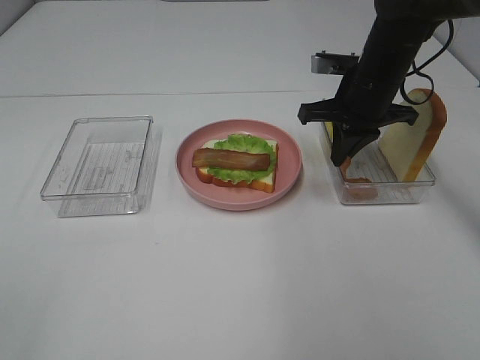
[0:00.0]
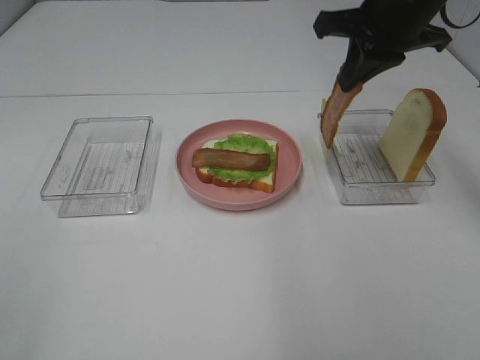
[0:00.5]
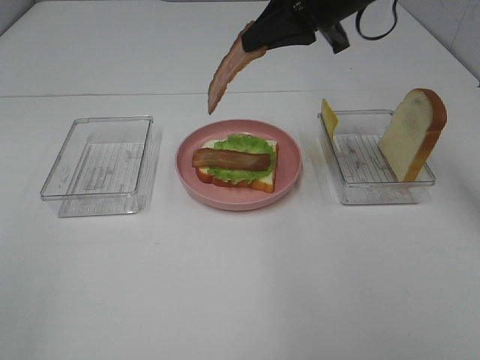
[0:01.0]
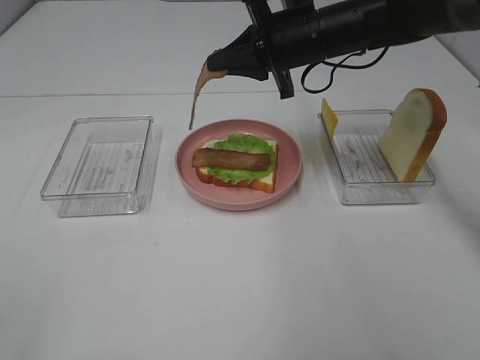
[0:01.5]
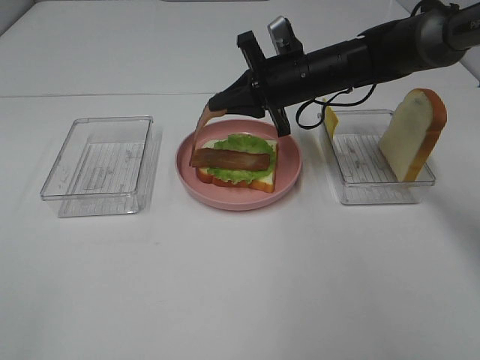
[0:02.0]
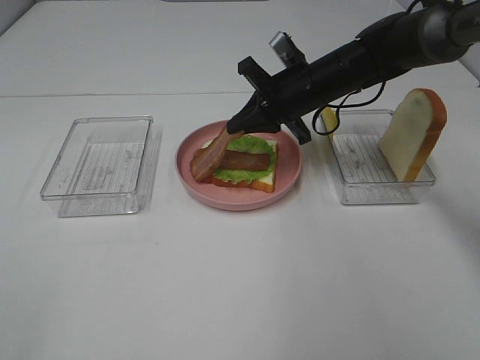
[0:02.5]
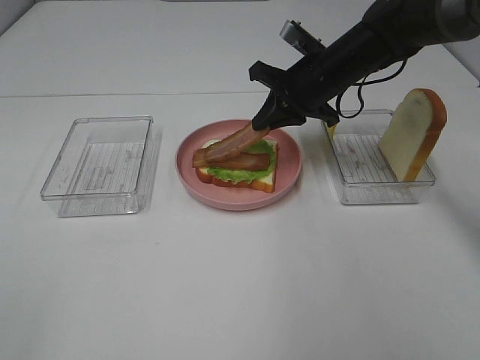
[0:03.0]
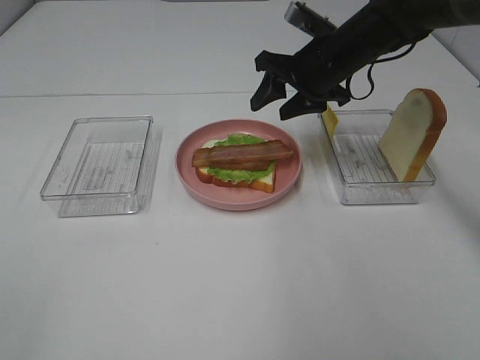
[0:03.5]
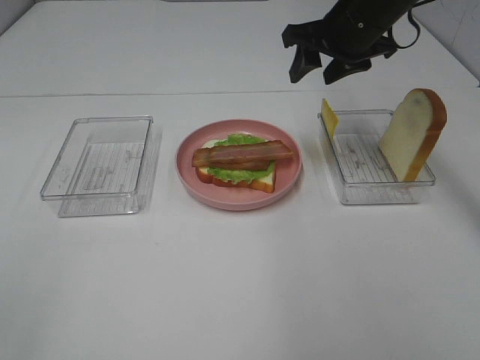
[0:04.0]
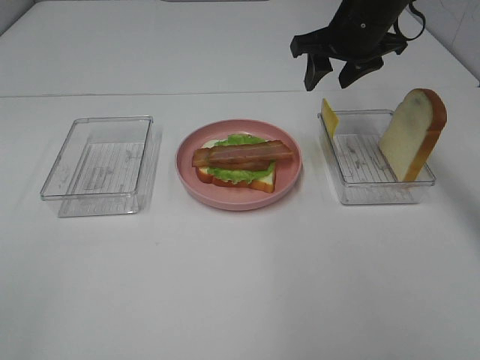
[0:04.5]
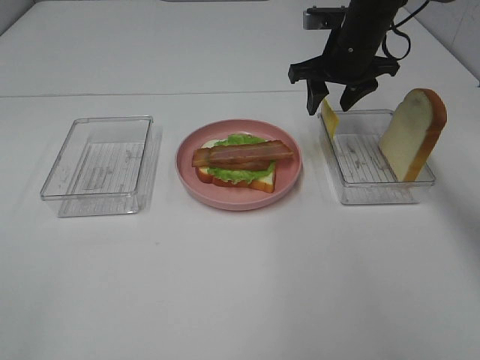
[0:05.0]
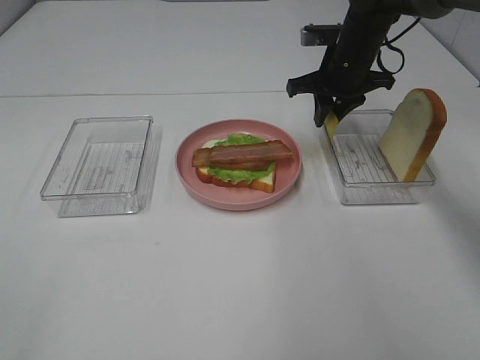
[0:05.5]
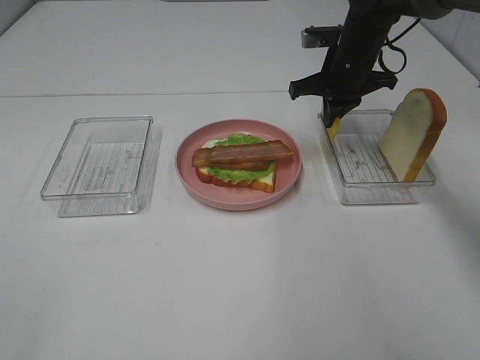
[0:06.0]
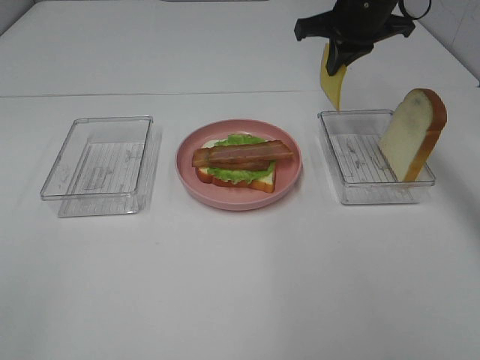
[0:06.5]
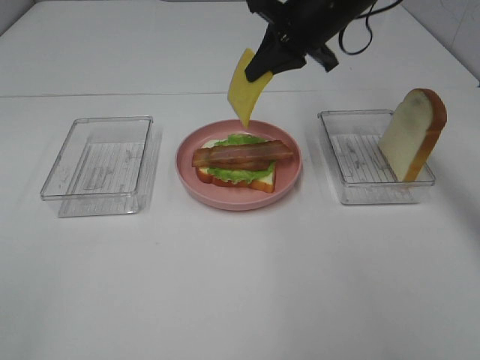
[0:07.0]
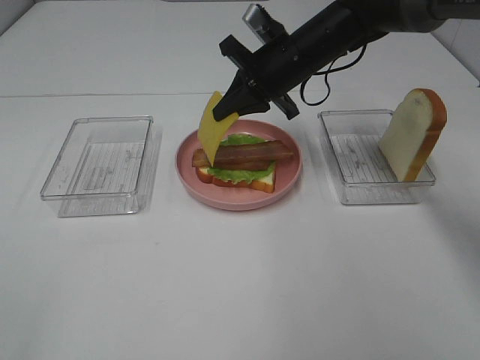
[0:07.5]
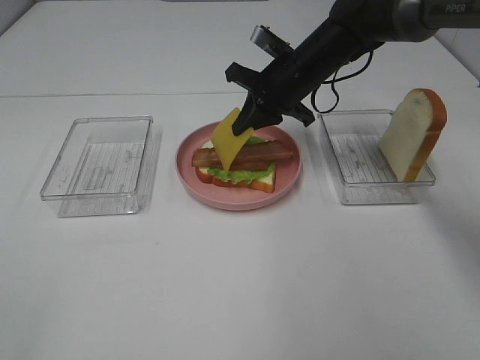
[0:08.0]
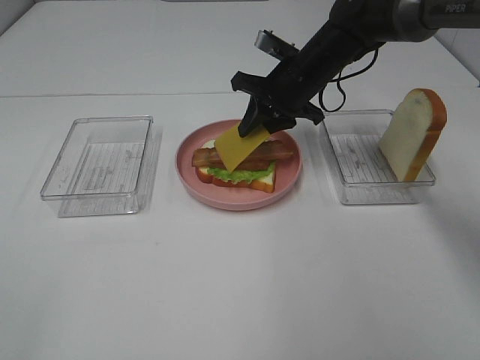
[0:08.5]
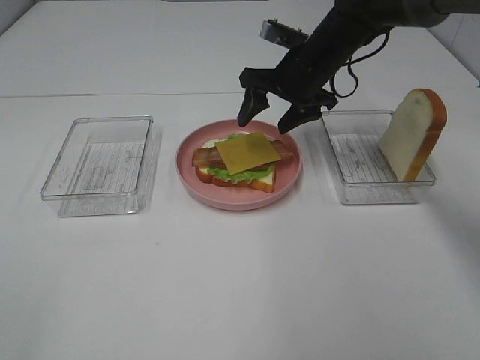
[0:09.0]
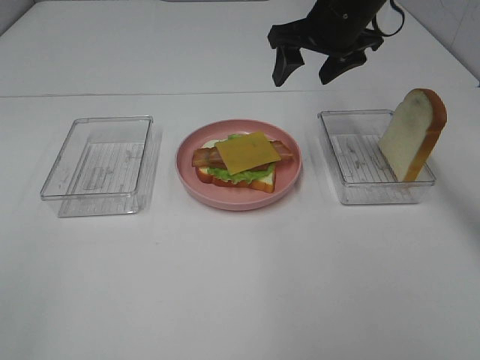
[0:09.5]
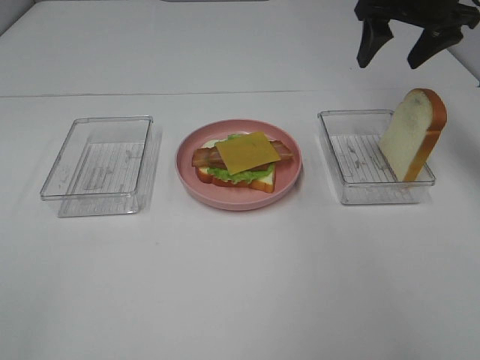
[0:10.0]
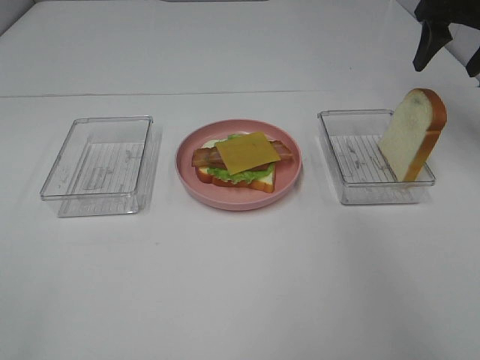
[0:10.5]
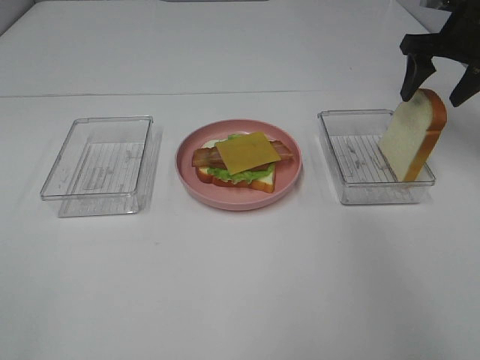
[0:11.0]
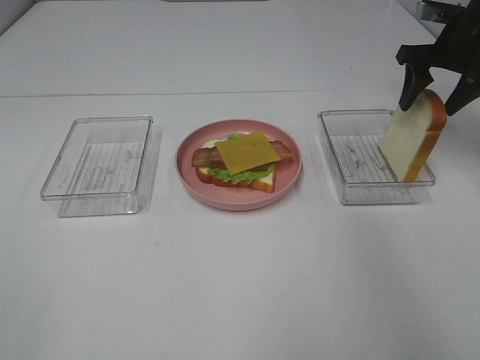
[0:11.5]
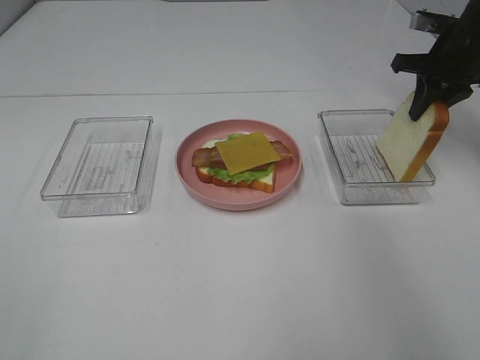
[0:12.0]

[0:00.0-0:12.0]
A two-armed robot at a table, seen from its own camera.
Task of the whole recording: Make sandwiches.
Step, 0:00.0 to 0:03.5: Right hand:place bacon on bacon.
Step, 0:04.0 to 0:05.5: Right hand:grab the cheese slice.
Step, 0:06.0 to 0:09.0: Right hand:place the cheese slice on top of the bacon.
0:00.0 to 0:02.0: The right gripper moves to the left, approximately 5 cm, and moves some 10 cm upward and comes back.
0:02.0 to 0:04.0: The right gripper travels upward and to the right by approximately 10 cm, and opens up.
0:04.0 to 0:06.0: The right gripper travels downward by roughly 5 cm, and closes up.
0:06.0 to 0:08.0: The right gripper shifts about 5 cm to the left, and travels upward and back again, roughly 10 cm each way.
0:08.0 to 0:10.0: The right gripper shifts roughly 20 cm to the right and upward, and opens.
0:10.0 to 0:12.0: The right gripper goes some 10 cm downward and to the right, and closes its fingers.

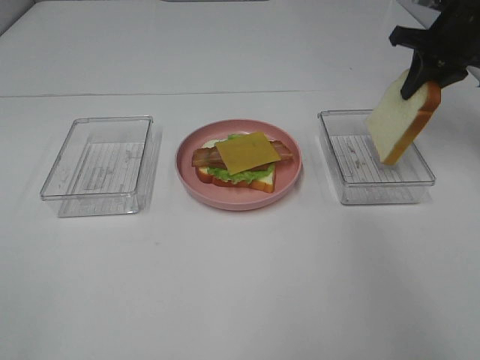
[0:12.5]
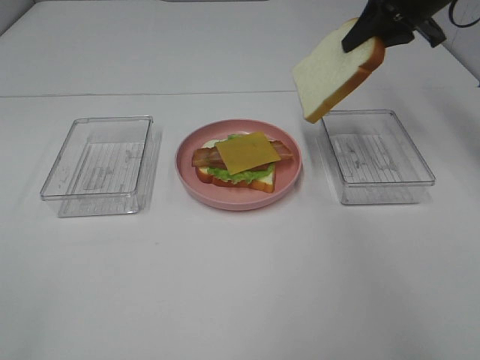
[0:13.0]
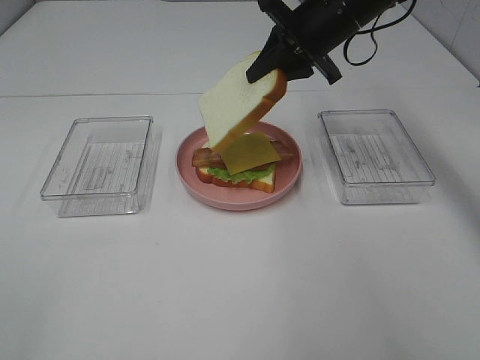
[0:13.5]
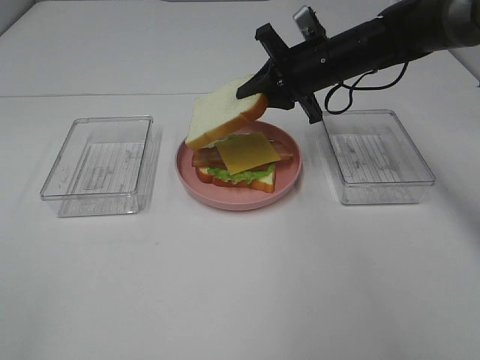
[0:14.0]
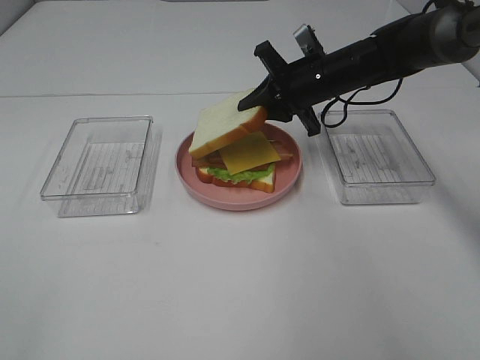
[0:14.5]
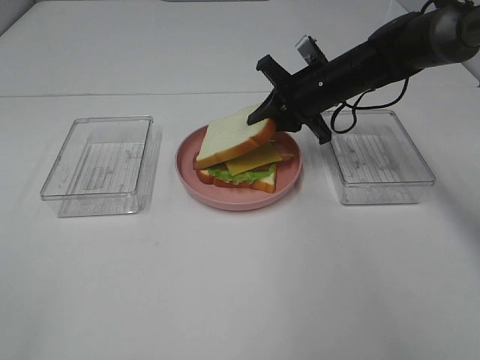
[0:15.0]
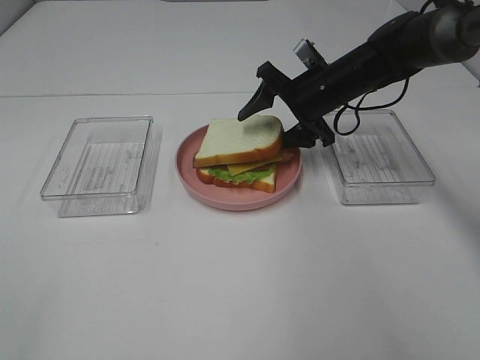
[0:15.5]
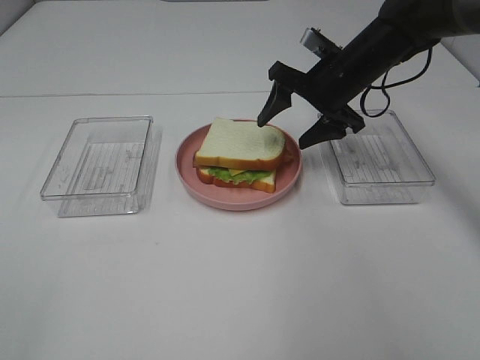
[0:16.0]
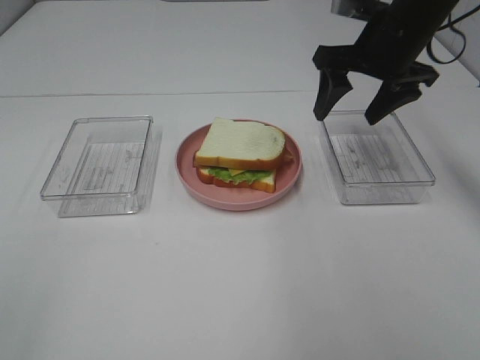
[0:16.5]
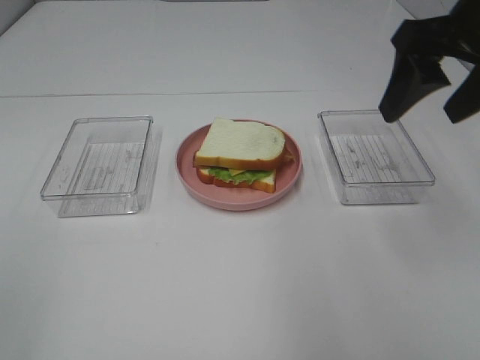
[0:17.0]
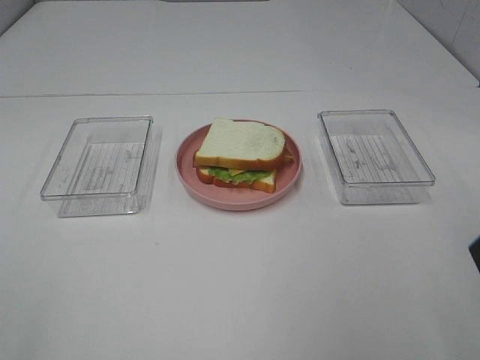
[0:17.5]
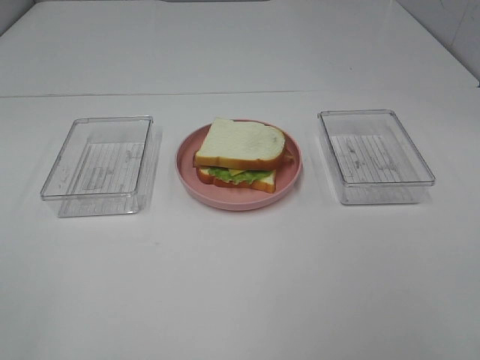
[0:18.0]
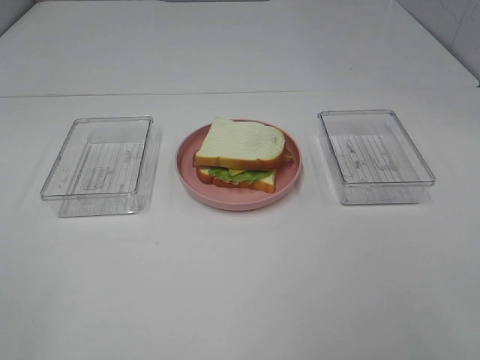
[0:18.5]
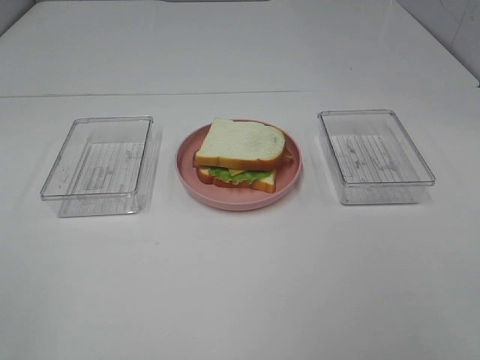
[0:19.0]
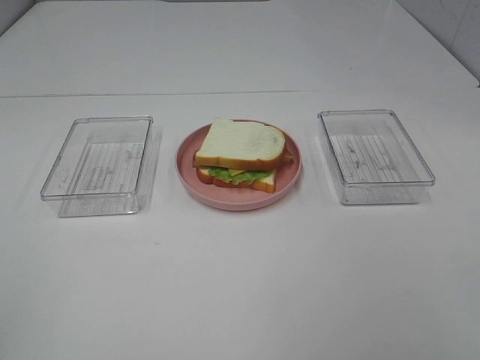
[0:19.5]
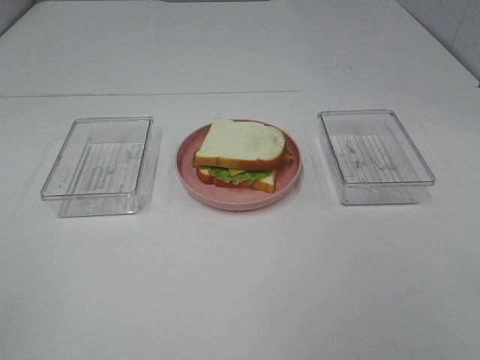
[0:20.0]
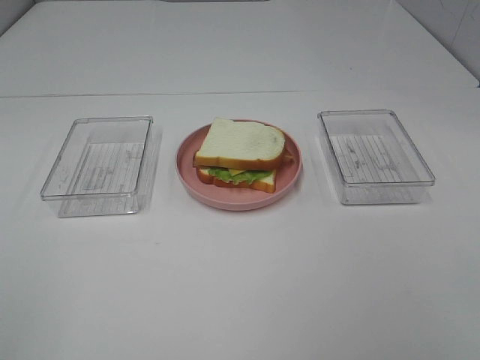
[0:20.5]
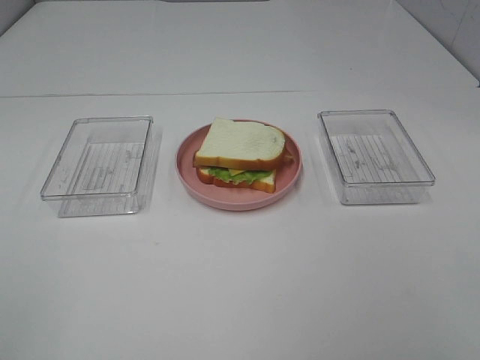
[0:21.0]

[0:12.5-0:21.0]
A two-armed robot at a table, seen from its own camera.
Task of the whole recording: Make sandwiches.
Step, 0:12.5 to 0:16.0: Right hand:place the bread slice on the cheese slice.
0:12.5 to 0:14.5: The right gripper shifts about 20 cm to the left and downward.
0:14.5 to 0:16.5: The right gripper is displaced upward, backward and to the right by approximately 15 cm, and opens up.
0:16.5 to 0:19.0: The right gripper travels backward by approximately 40 cm.

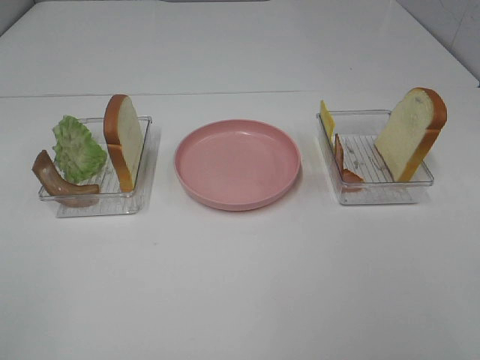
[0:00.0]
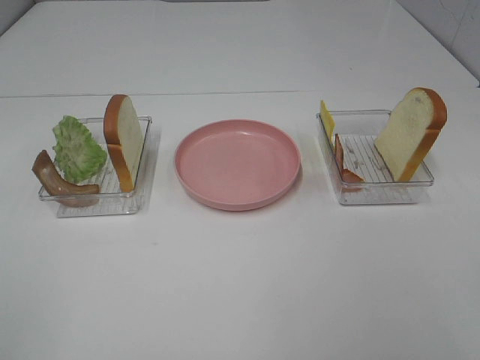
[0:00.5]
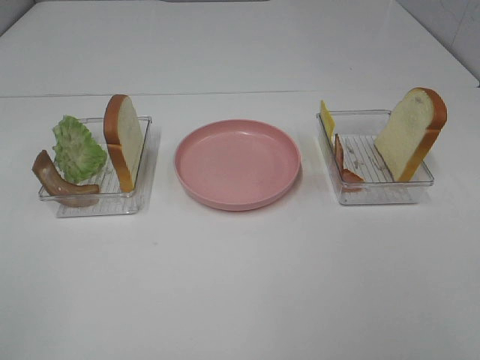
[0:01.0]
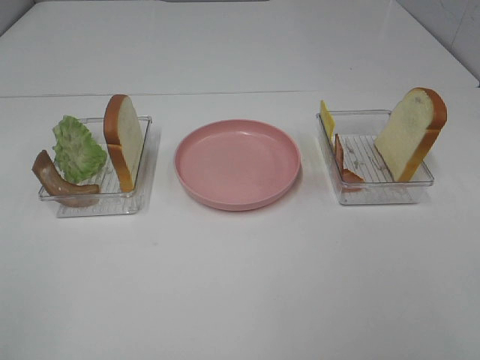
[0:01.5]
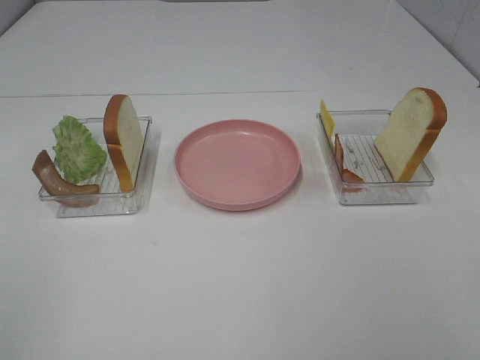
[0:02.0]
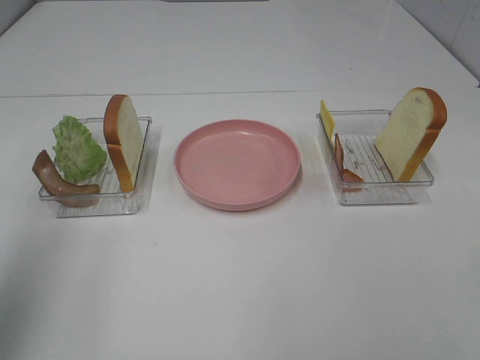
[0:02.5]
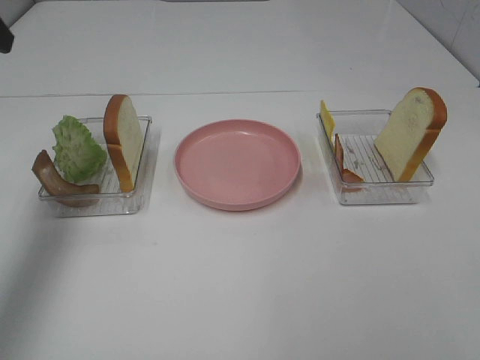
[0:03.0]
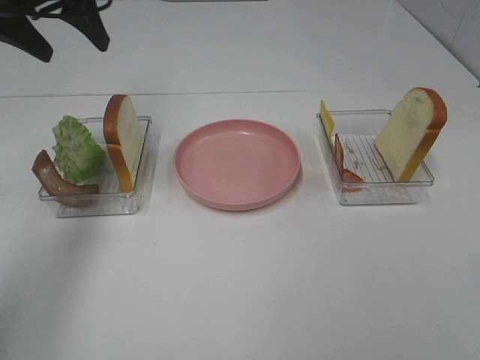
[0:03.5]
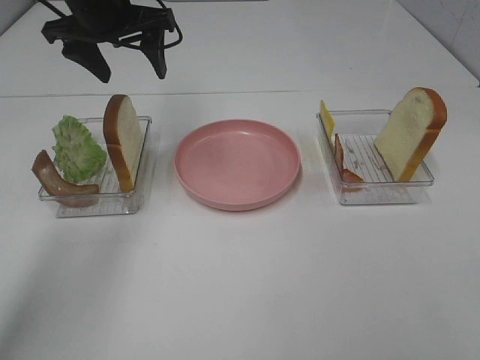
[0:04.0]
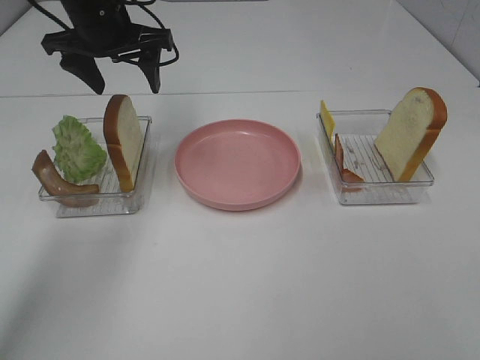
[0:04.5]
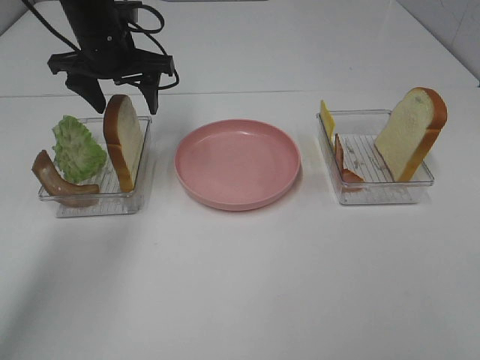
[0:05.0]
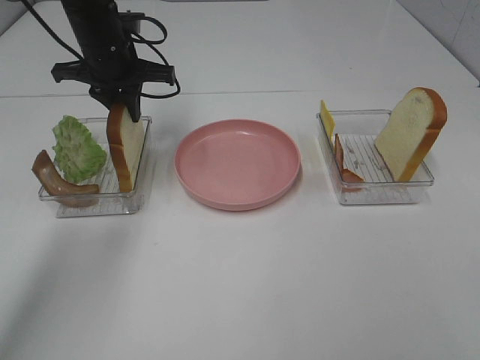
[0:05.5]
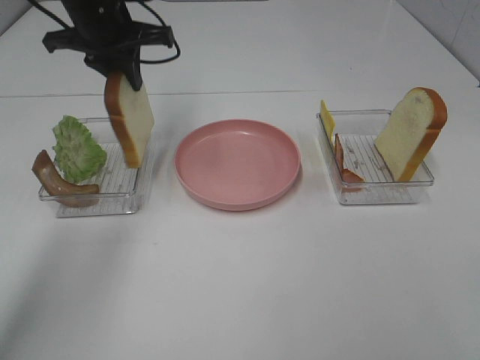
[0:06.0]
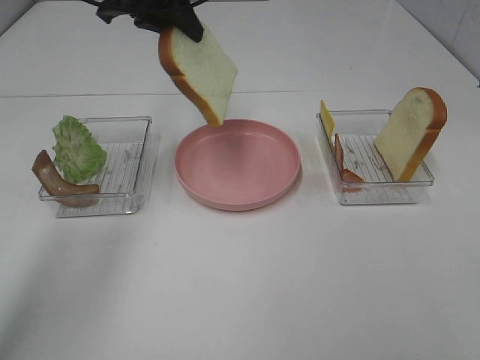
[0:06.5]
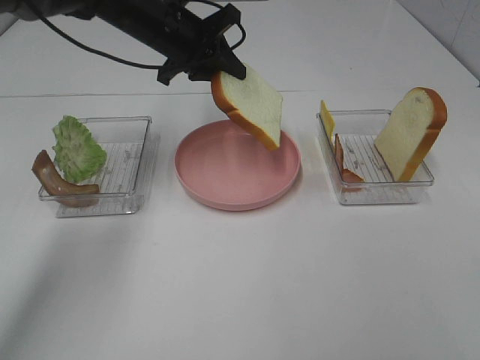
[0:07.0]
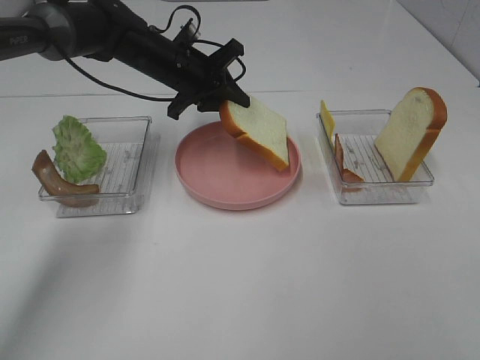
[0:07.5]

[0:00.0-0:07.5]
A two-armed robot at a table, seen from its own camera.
Task of the whole recording: Make sandwiches.
Step, 0:00.0 to 0:05.5: Left hand:grab the bread slice.
0:02.0 to 0:04.0: The left gripper moves forward, some 40 cm.
0:04.0 to 0:05.5: The left gripper is displaced downward by roughly 5 cm, and closes up.
0:05.5 to 0:07.5: The left gripper moves to the right, approximately 5 cm, and travels upward and back again, about 10 cm each way.
